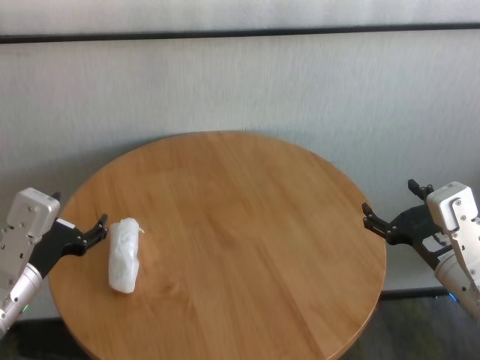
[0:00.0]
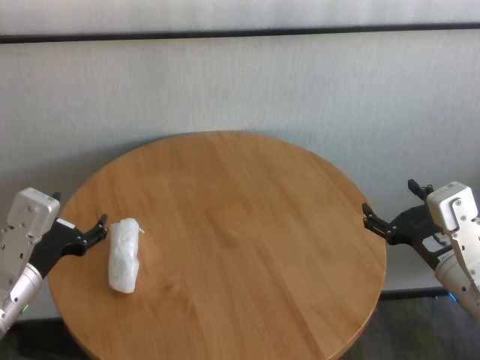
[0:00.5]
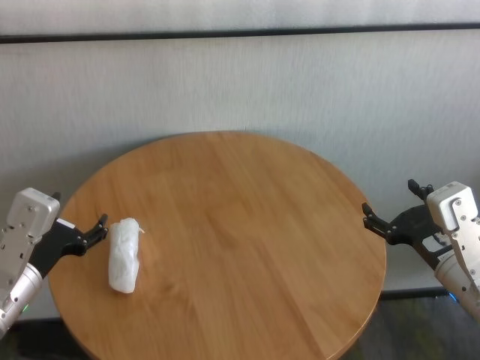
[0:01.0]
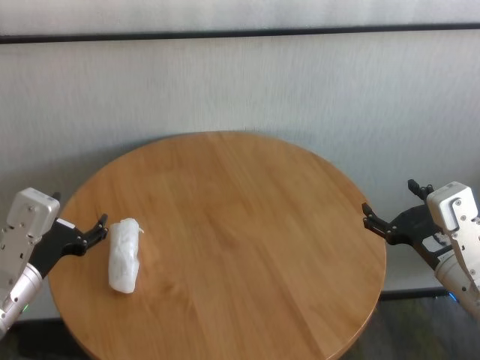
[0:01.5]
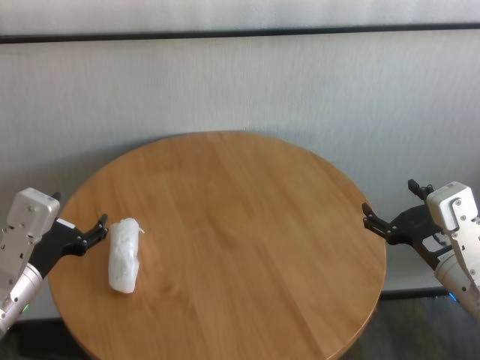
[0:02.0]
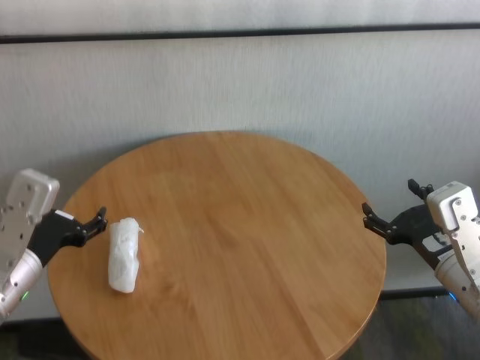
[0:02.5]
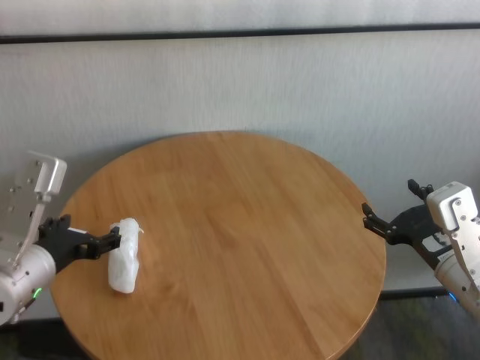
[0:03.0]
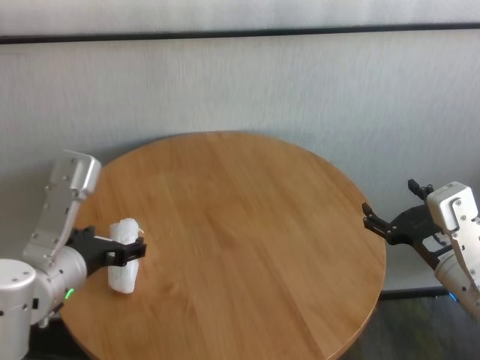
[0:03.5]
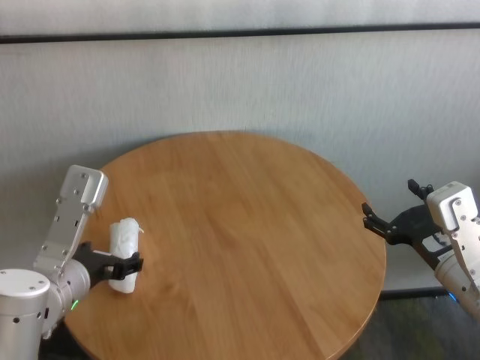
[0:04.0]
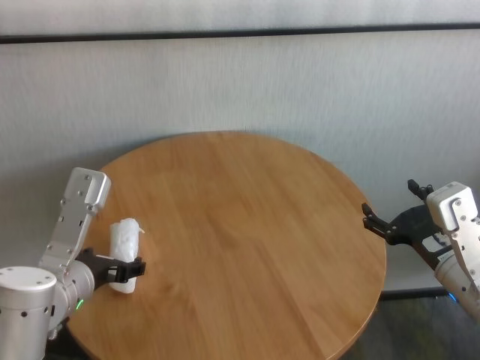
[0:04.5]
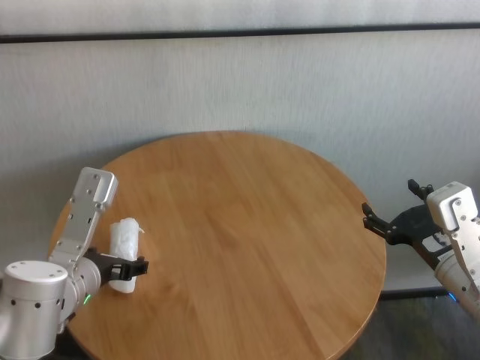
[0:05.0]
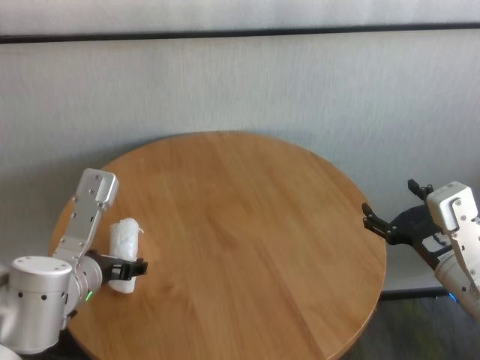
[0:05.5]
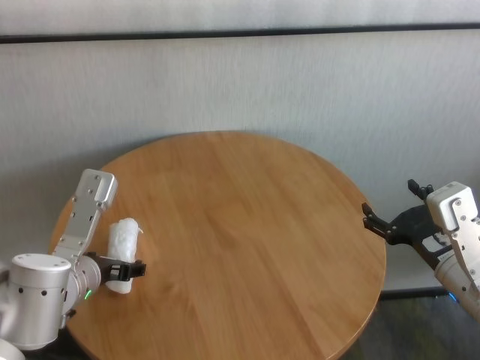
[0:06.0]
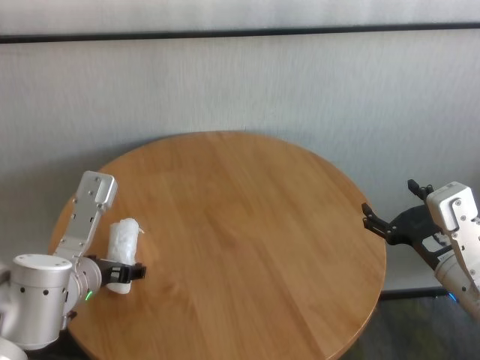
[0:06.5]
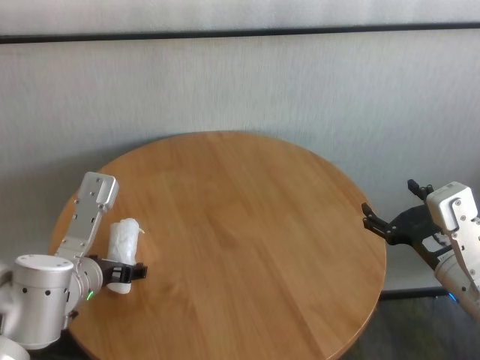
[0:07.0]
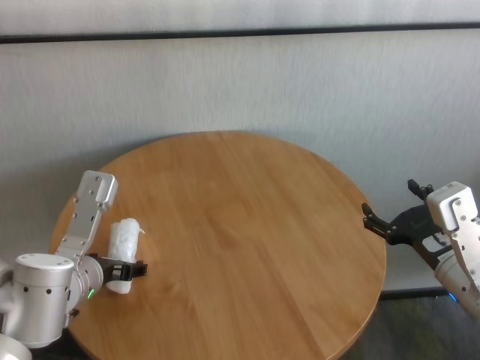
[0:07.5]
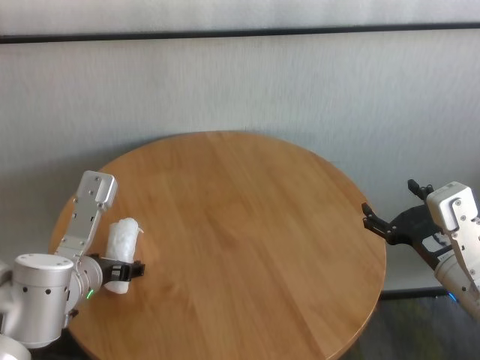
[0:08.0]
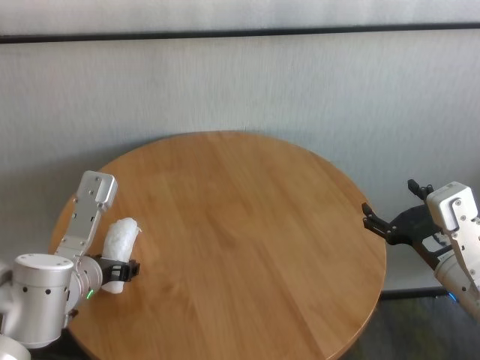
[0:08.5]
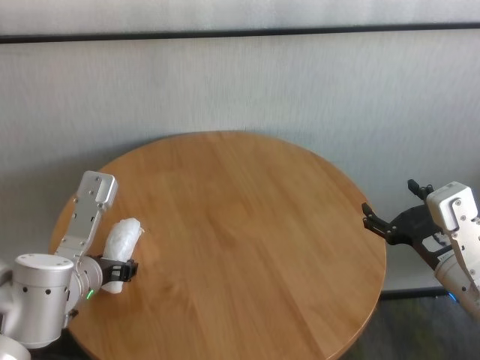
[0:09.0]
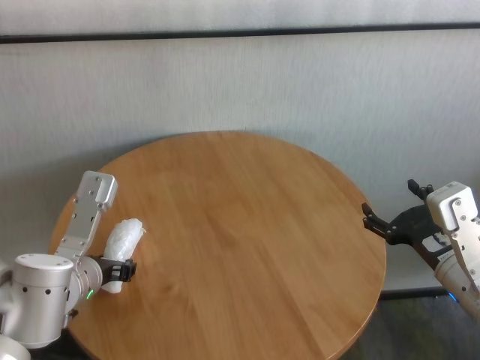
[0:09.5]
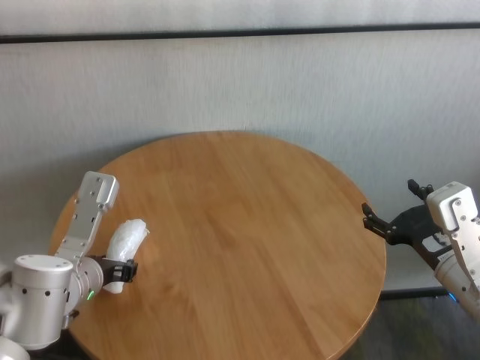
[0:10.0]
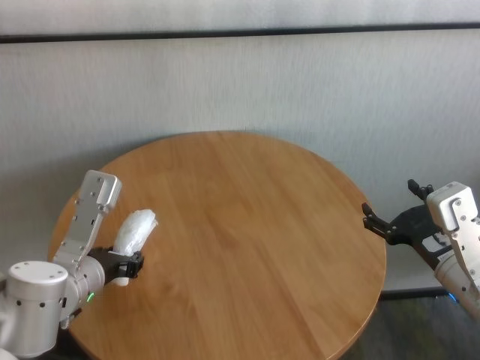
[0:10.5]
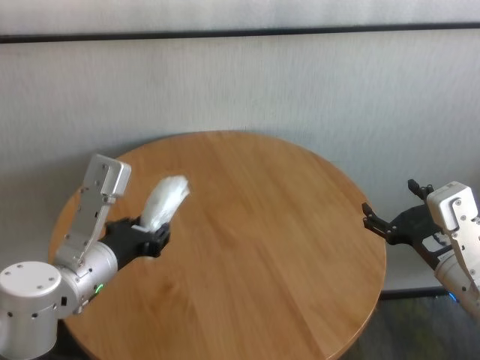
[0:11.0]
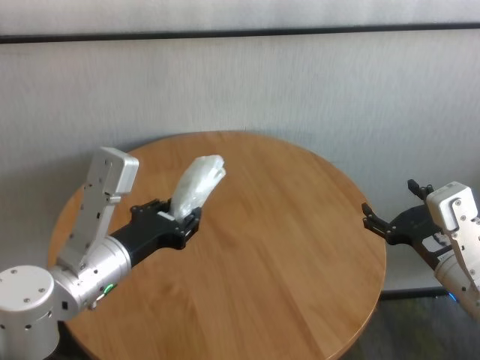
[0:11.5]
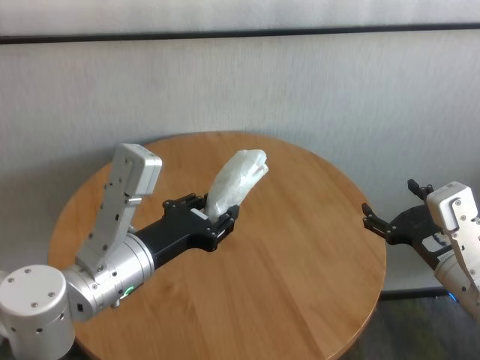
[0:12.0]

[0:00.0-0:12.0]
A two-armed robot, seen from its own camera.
Task of the whole recording: One hand took the sandbag from the other hand and placed it on the table.
Step, 0:00.0 to 0:09.5: Grasp the paper ball with left gripper.

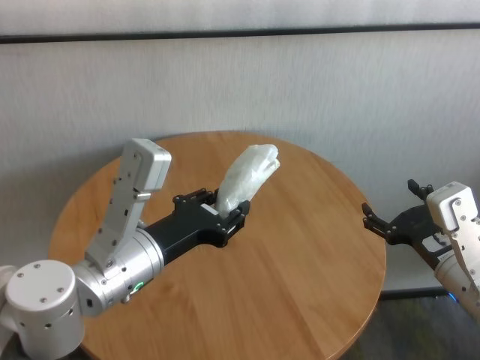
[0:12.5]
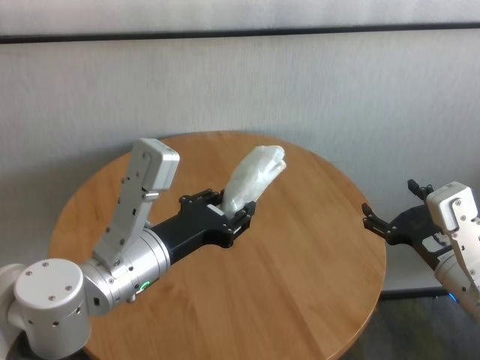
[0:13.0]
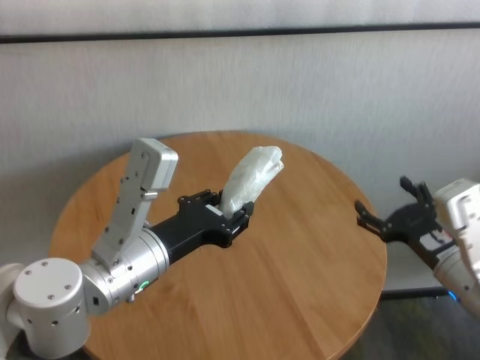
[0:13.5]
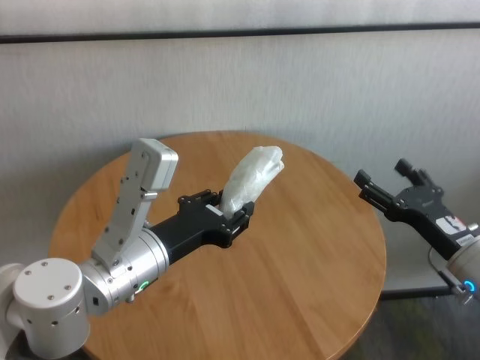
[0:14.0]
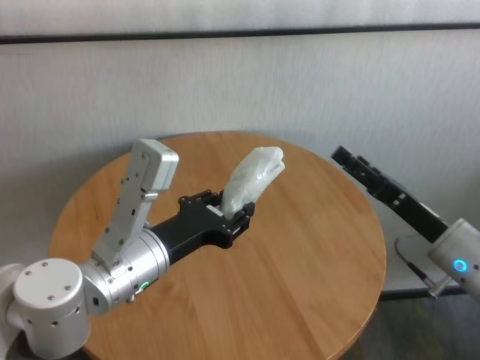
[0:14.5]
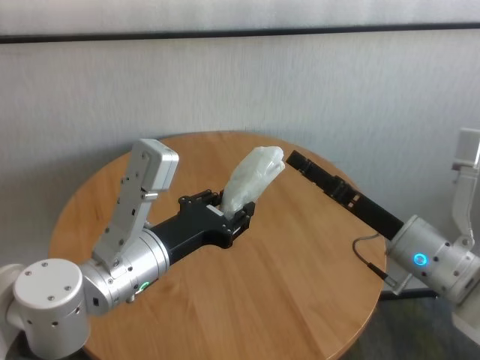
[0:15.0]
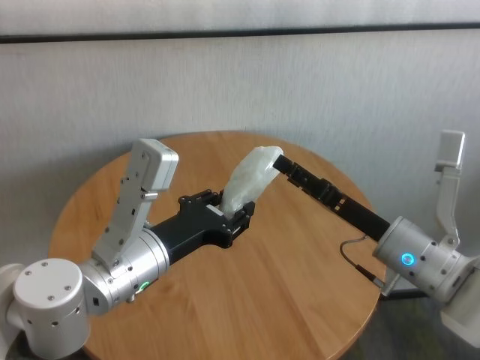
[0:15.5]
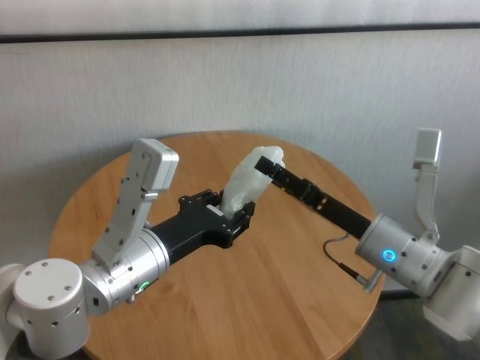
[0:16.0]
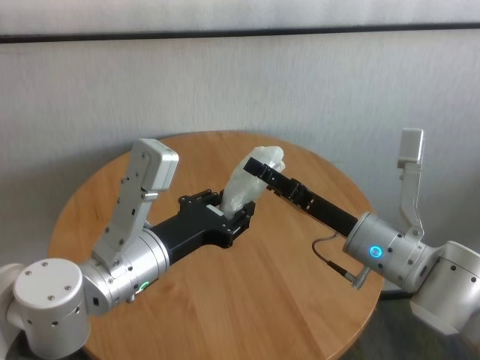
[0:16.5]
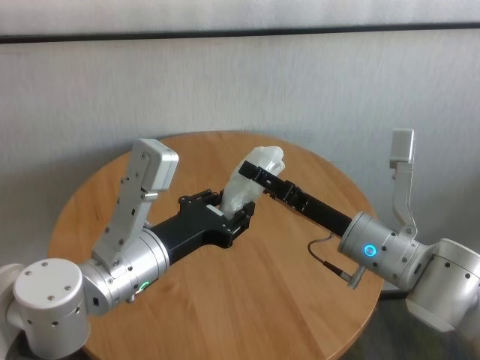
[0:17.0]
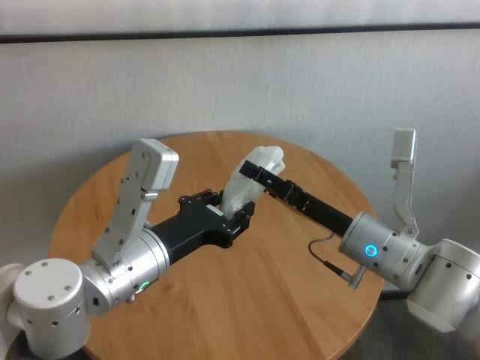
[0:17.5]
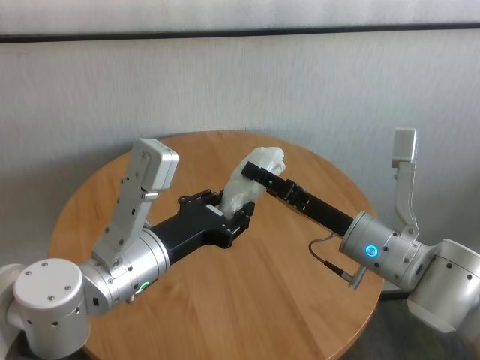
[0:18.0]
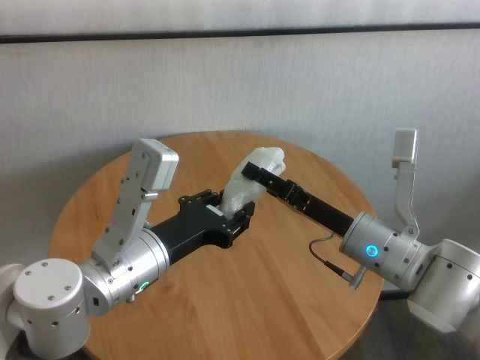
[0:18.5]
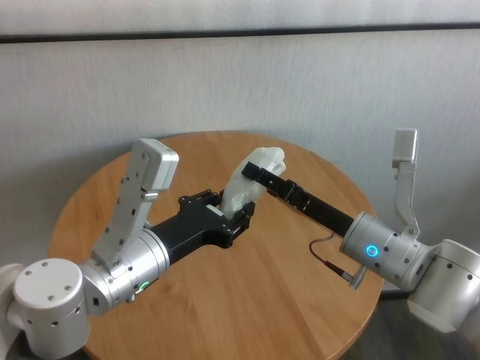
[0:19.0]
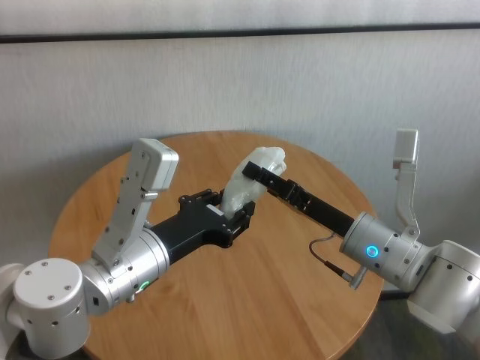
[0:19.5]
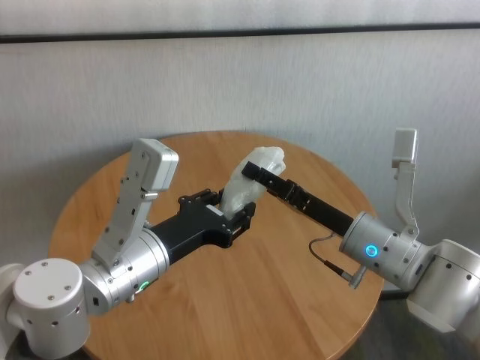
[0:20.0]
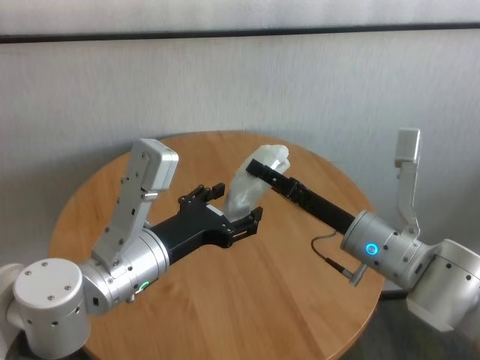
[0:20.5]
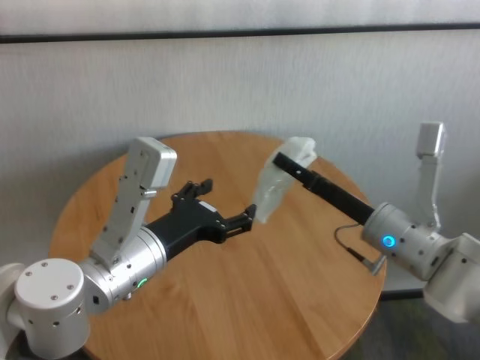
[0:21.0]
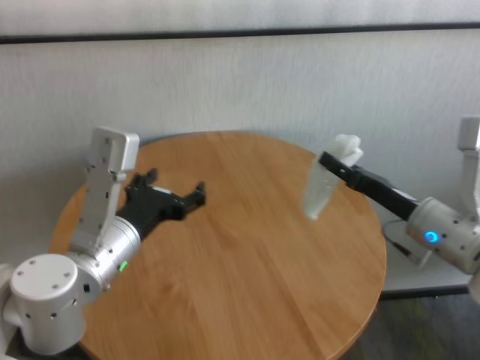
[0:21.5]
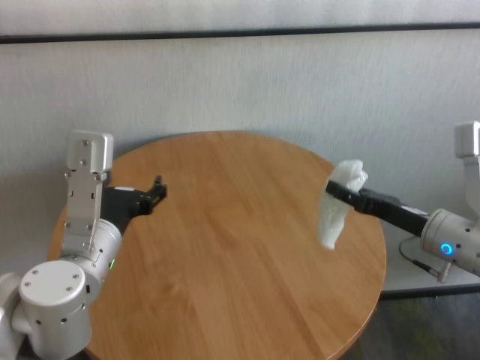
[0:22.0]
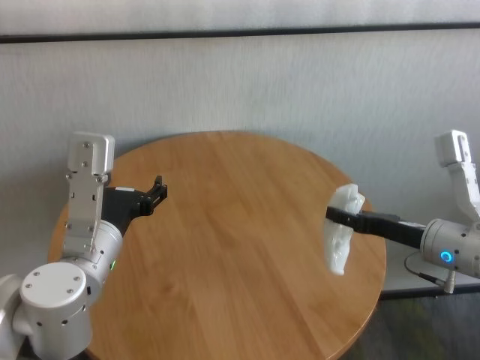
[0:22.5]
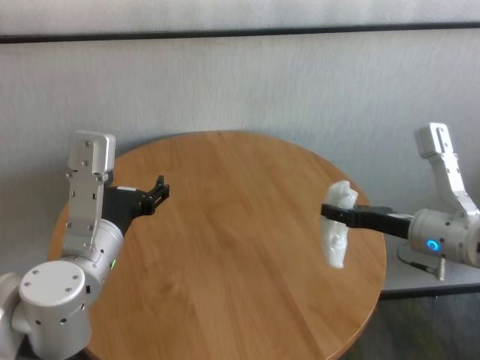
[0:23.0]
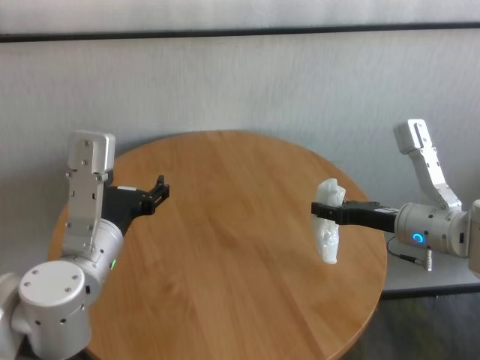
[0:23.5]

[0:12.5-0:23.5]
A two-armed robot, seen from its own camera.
Task of the whole recording: One hand took the sandbag from the other hand and placed it on the table.
Step, 0:12.5 to 0:20.5: Pass the paper ball to the right gripper.

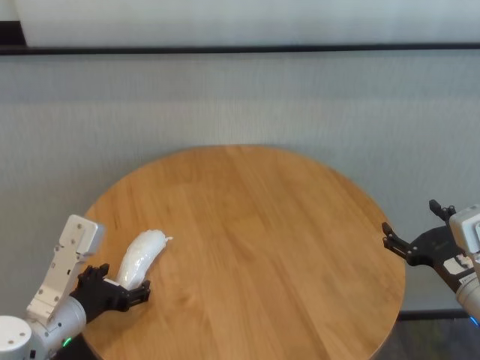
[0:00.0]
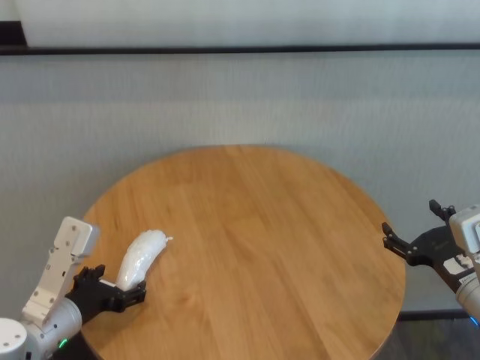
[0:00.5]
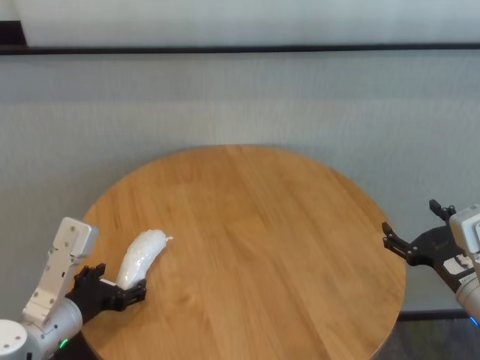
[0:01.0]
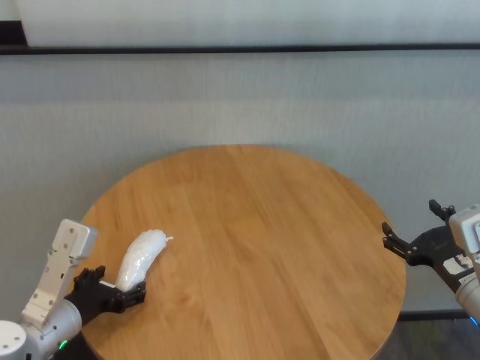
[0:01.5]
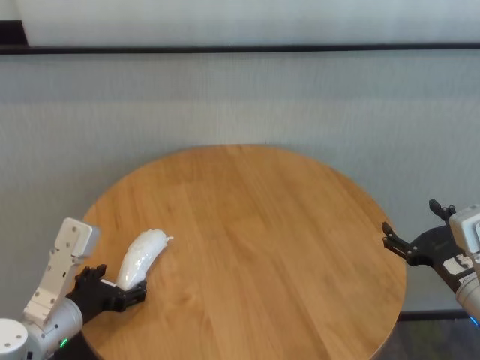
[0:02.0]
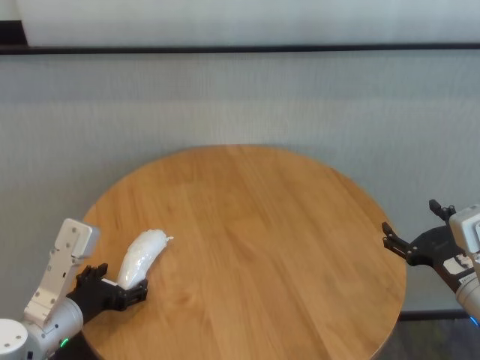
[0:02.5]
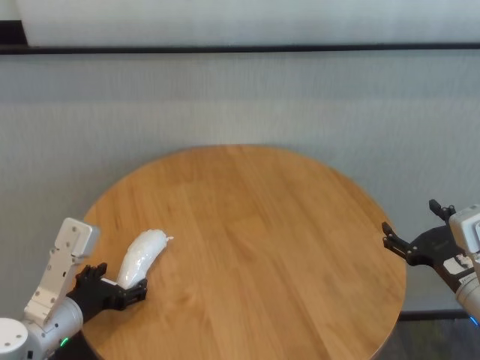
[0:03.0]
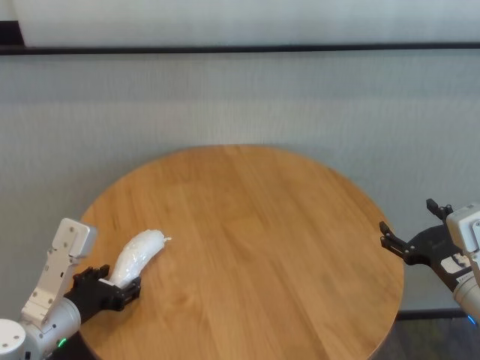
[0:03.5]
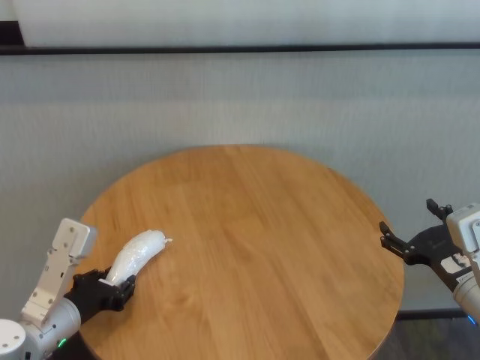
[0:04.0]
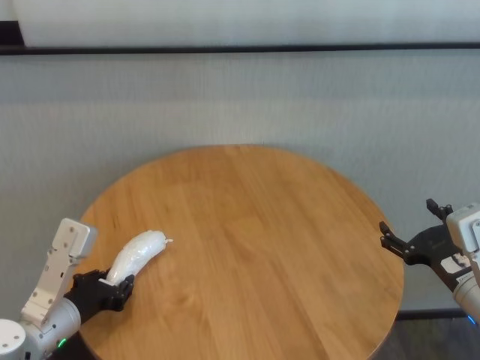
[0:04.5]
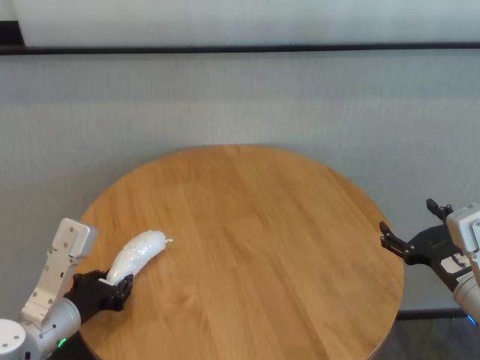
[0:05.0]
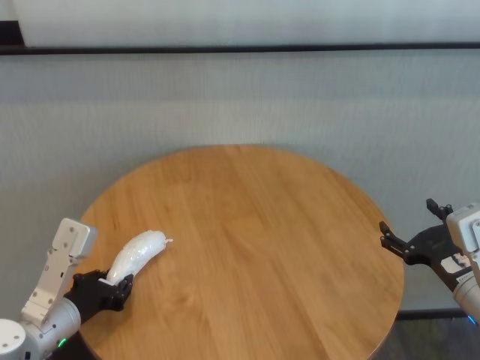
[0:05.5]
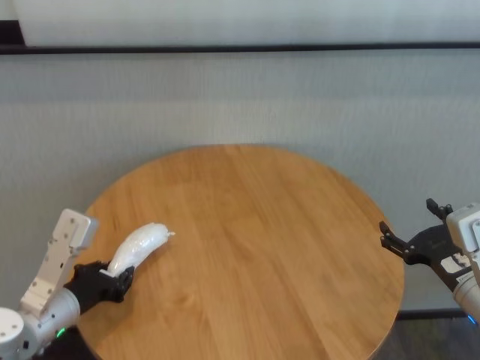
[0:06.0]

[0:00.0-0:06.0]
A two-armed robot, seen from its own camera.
Task of the whole recording: One hand took the sandbag from the other hand and placed it on the table.
Step, 0:00.0 to 0:05.0: Grasp the paper ball with left gripper.
